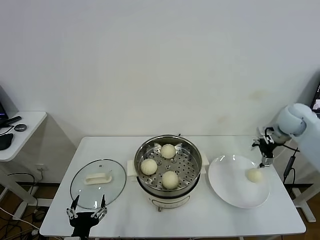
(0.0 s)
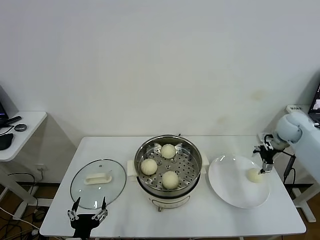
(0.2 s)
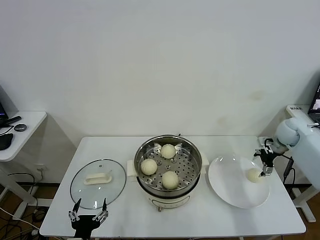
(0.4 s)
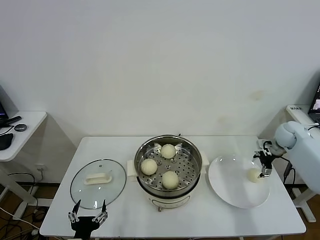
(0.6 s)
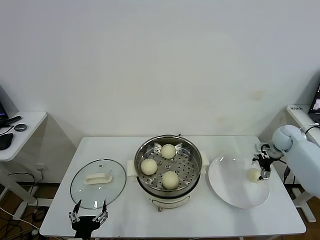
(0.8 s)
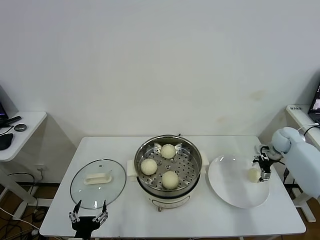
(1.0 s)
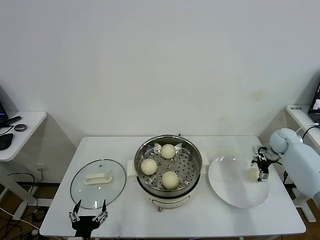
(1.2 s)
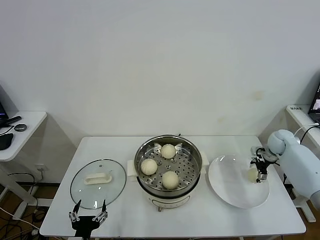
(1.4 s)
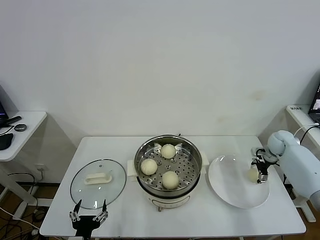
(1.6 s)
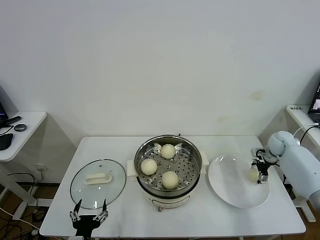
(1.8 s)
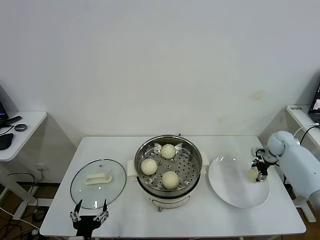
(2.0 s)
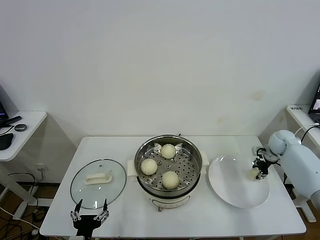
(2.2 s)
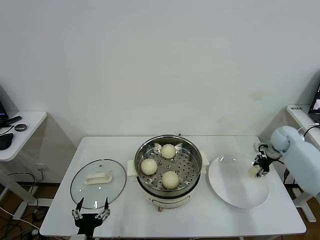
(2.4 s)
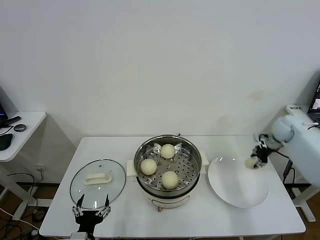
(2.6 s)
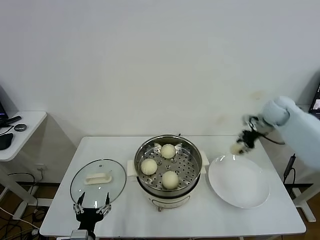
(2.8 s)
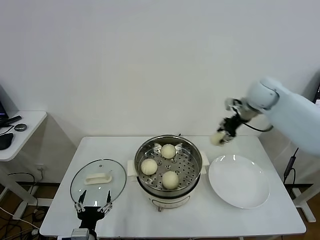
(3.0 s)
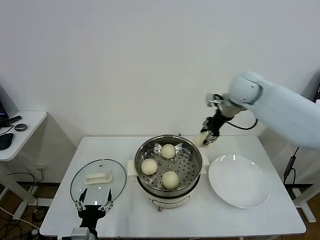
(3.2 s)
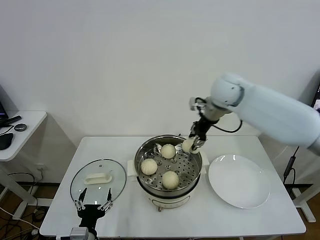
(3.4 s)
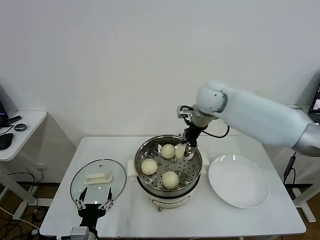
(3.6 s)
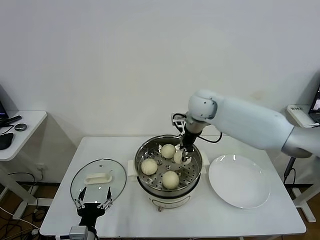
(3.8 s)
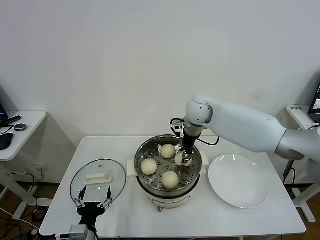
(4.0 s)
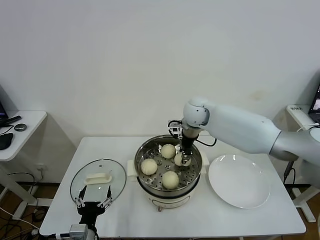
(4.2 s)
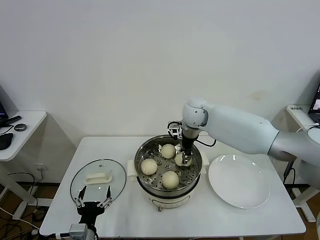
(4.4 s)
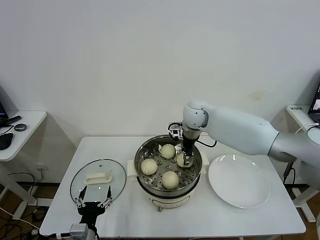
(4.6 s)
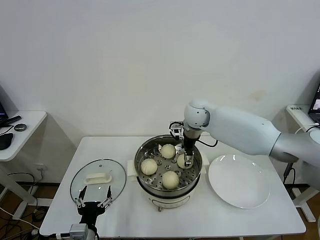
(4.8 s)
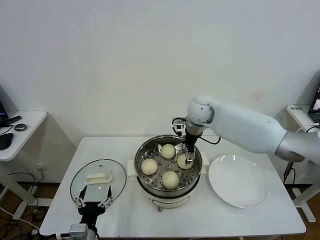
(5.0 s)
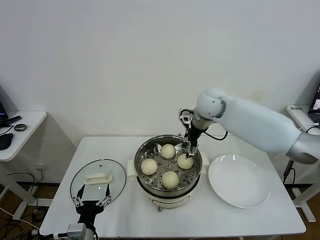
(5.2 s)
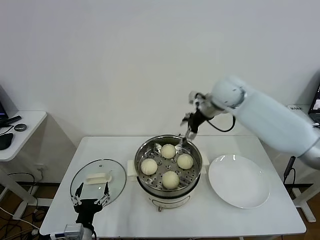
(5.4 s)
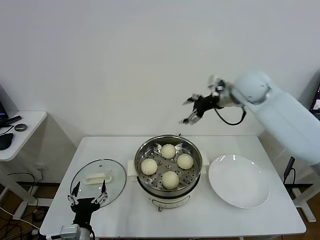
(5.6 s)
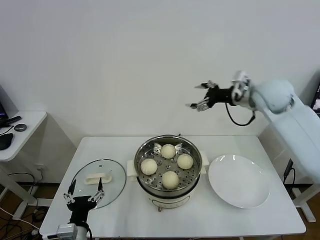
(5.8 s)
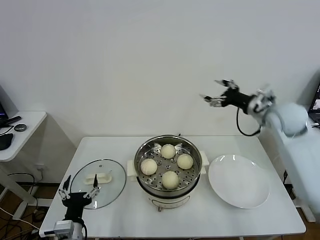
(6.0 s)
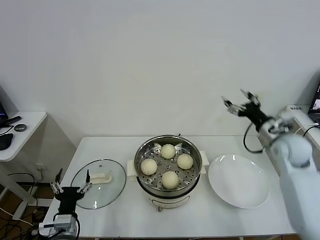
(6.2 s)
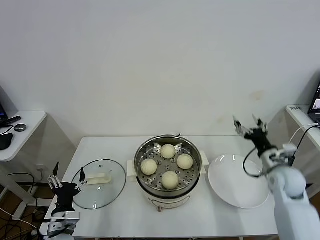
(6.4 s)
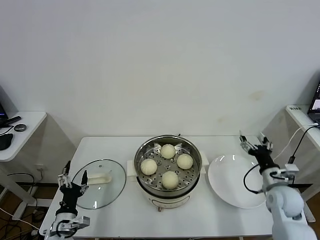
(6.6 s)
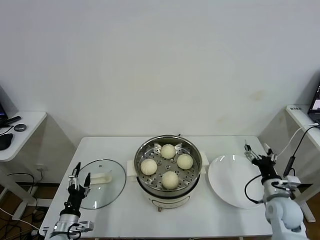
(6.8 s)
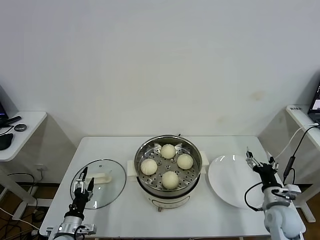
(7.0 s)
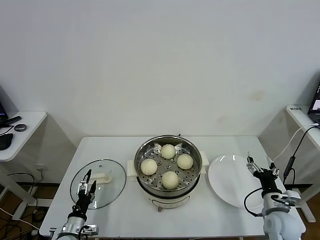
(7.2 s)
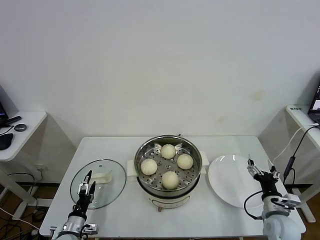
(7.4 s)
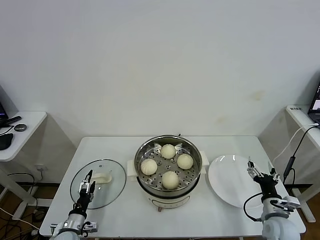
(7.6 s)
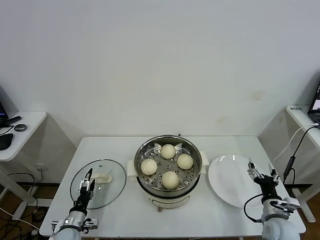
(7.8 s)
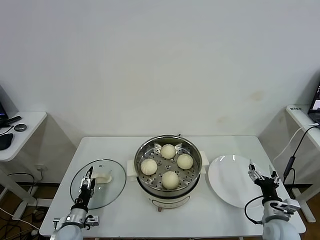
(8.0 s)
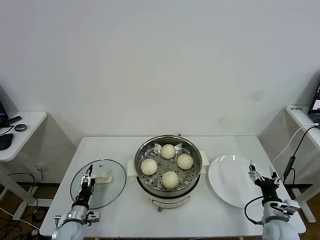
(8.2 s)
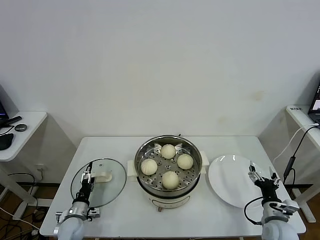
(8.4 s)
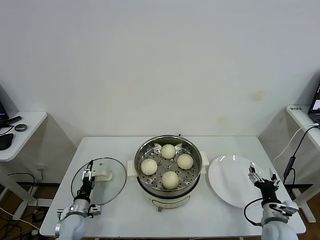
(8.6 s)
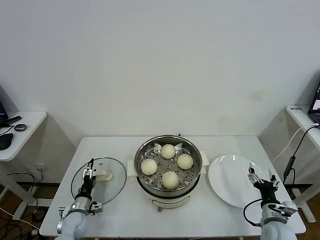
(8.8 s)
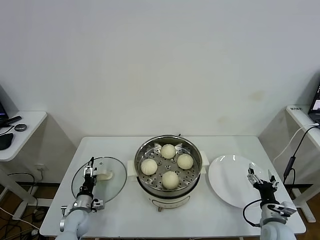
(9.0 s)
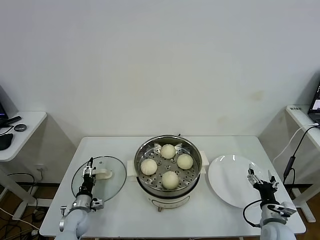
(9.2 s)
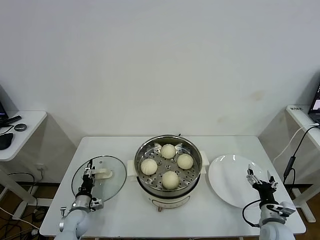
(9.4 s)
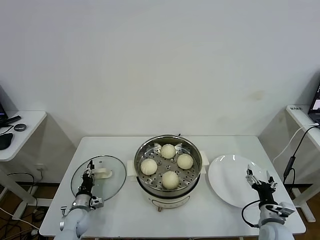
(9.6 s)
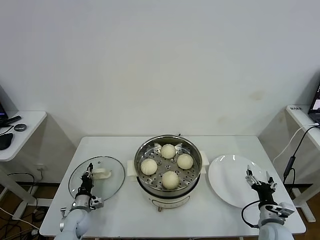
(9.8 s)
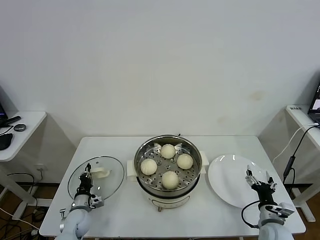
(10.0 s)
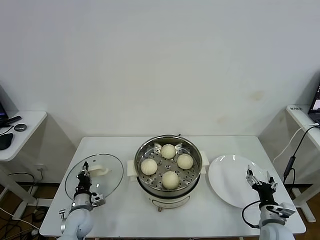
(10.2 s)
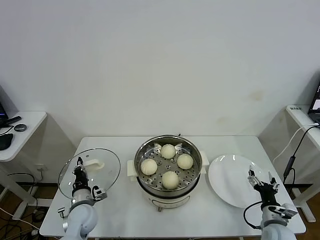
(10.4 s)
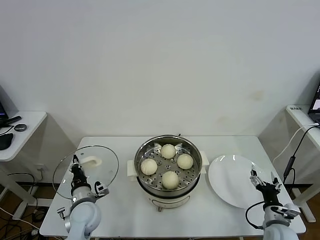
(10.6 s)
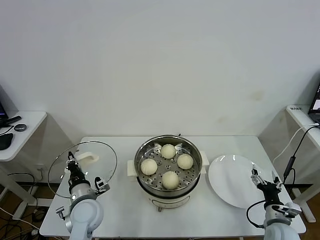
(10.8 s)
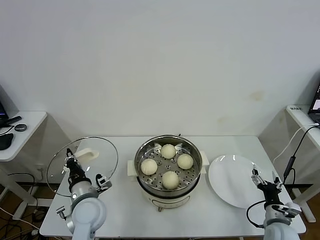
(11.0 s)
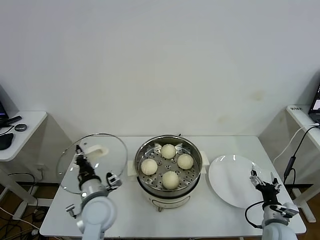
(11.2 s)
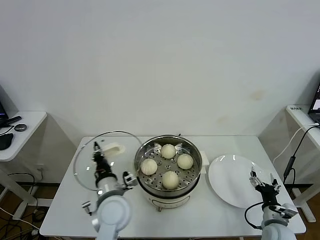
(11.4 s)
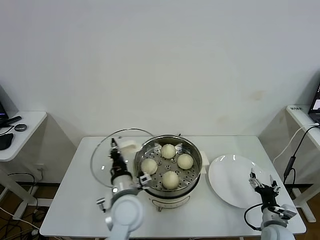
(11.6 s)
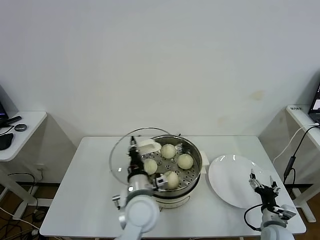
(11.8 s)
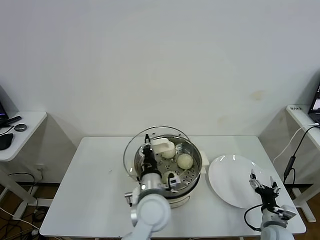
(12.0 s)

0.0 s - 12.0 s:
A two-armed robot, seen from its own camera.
Task of the whole recording: take steamed baozi put them in steamer.
Step, 0.0 s - 2.0 s: Grasp the baozi in the plate with right gripper.
Step, 2.2 s - 5.0 s: Place the baozi on the steamer with right gripper.
Step, 5.4 s - 10.0 s: Grasp the pot lid with left gripper.
0.0 s - 1.6 s: The right gripper goes some 15 cm downward.
1.6 s - 3.0 s: The right gripper goes some 25 cm upward and to the left, and closes up.
3.0 s - 4.4 s: The right gripper shifts about 20 cm to the left.
4.4 s - 6.0 s: The right gripper moves to the right, about 25 cm, and opens up.
6.0 s - 7.6 s: The right gripper shifts about 35 cm downward and backward. The left gripper goes approximately 20 cm downward, to the left and forward.
7.6 s - 9.0 s: The left gripper is displaced forward by about 10 cm.
9.0 s - 10.4 s: The left gripper travels upward by approximately 10 cm, and closes its fingers.
10.4 s - 12.0 s: The left gripper shifts about 30 cm to the right and upward.

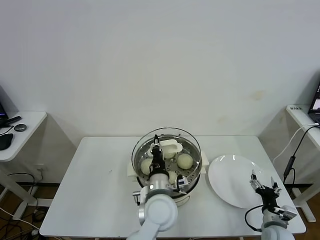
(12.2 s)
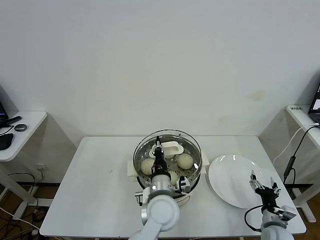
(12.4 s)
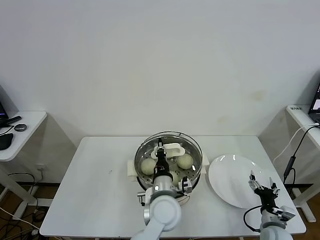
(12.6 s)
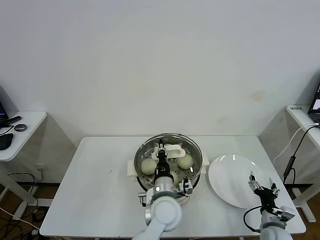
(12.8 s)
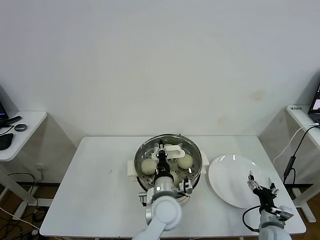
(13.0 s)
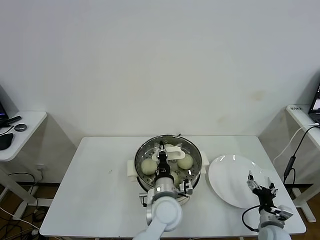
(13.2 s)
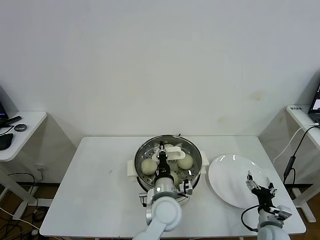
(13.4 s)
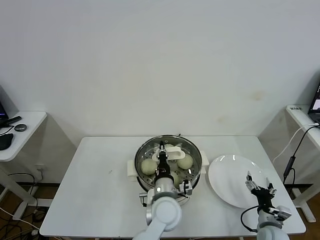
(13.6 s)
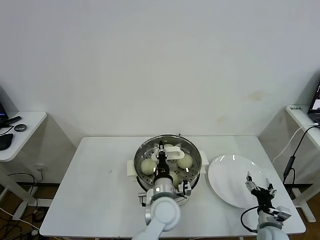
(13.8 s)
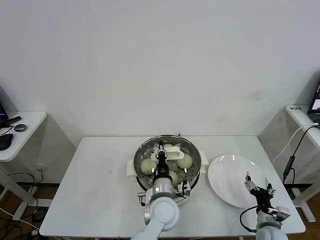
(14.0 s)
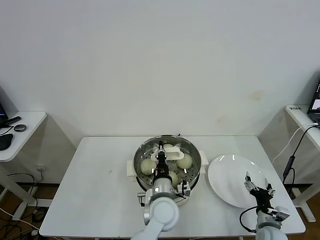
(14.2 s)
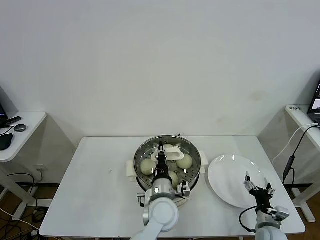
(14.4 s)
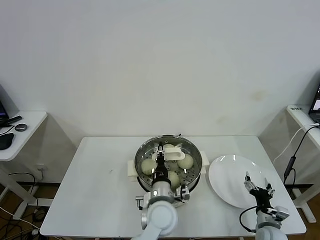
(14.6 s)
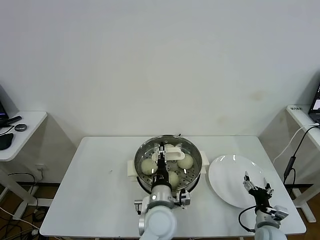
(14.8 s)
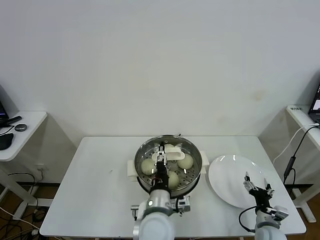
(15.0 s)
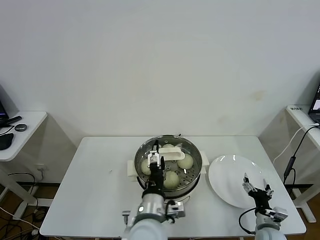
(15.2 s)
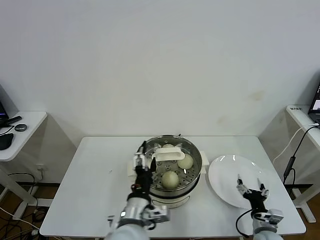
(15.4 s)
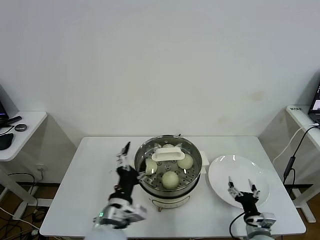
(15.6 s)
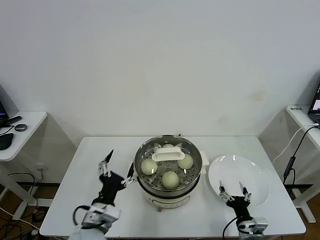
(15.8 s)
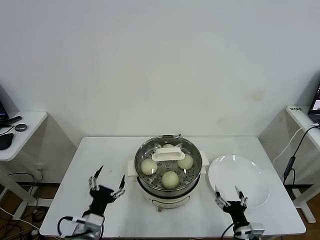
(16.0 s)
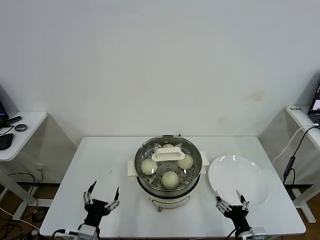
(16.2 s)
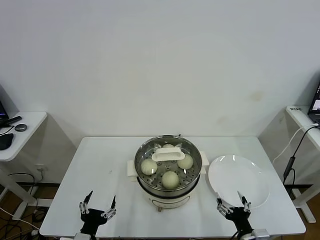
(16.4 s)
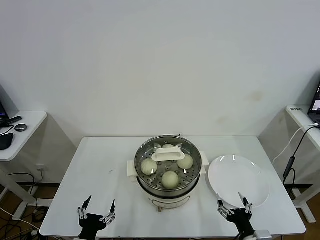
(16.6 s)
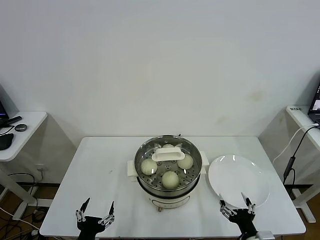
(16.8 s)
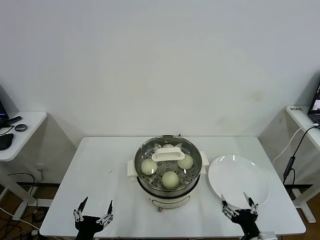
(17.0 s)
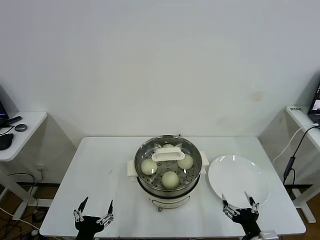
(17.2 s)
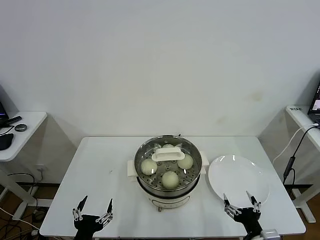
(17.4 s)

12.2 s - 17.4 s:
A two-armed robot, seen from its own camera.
Task of the whole recording: take steamed baozi put them in steamer.
Step, 12.2 s - 15.0 s: Place the pot lid on the steamer with left gripper.
12.2 s - 14.0 s: The left gripper changes place by roughly 5 cm.
14.0 s - 15.6 s: The left gripper travels to the left, backward and upward by roughly 15 cm, and opens up.
15.6 s - 17.4 s: The right gripper moves backward and upward, approximately 10 cm. The left gripper moves to the left, backward and downward, approximately 20 cm.

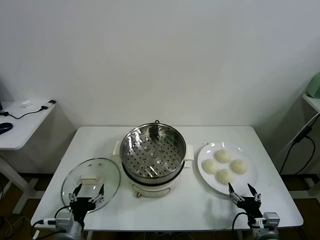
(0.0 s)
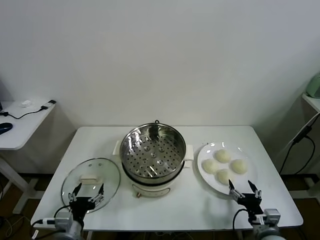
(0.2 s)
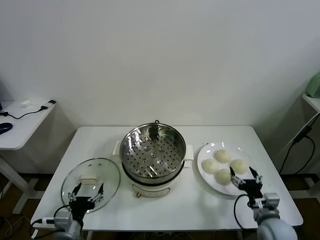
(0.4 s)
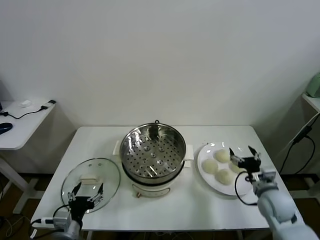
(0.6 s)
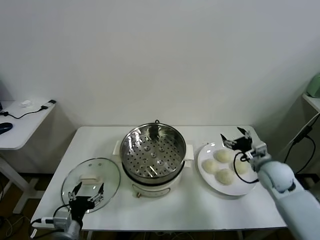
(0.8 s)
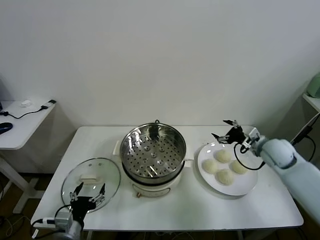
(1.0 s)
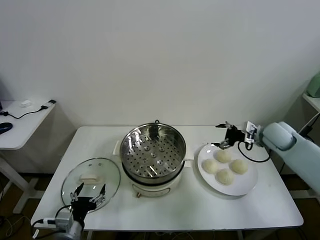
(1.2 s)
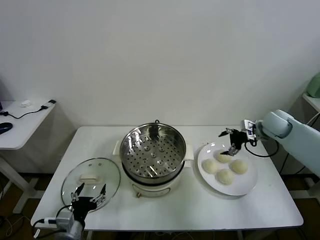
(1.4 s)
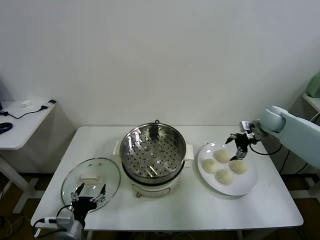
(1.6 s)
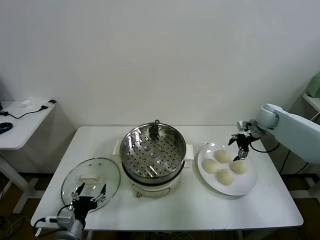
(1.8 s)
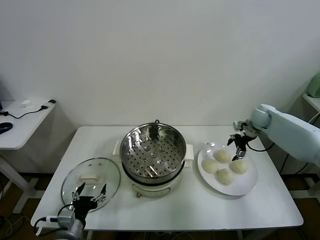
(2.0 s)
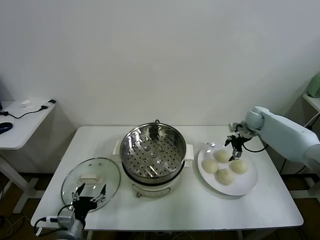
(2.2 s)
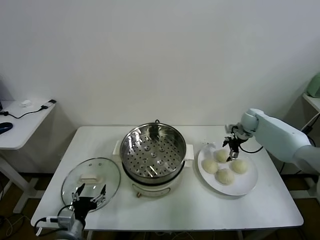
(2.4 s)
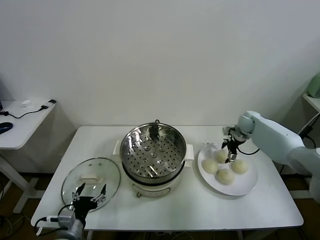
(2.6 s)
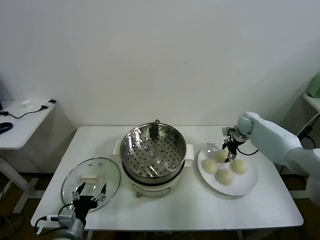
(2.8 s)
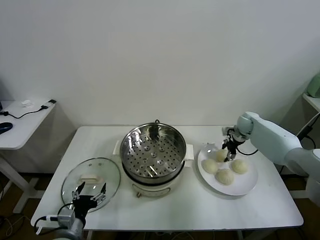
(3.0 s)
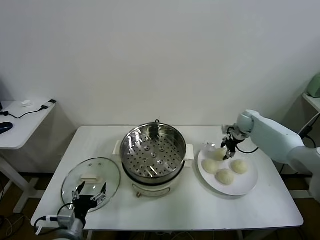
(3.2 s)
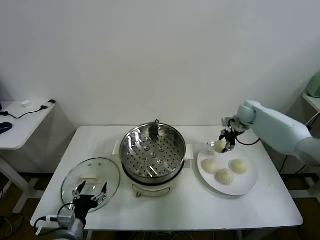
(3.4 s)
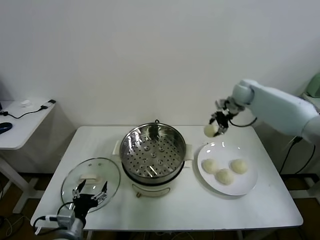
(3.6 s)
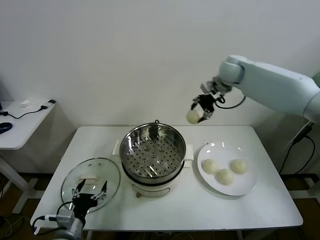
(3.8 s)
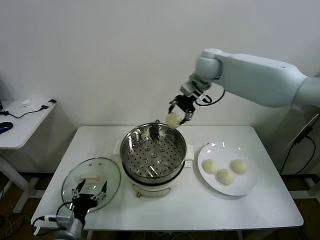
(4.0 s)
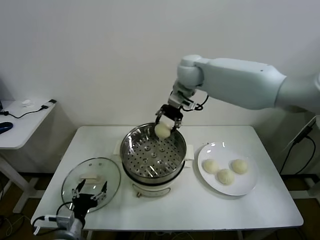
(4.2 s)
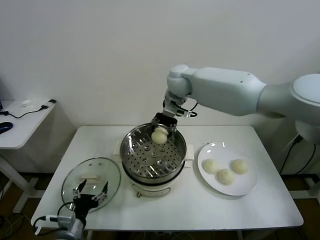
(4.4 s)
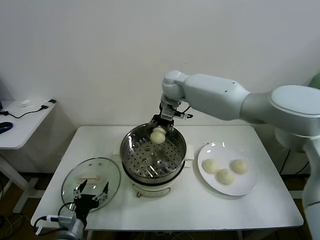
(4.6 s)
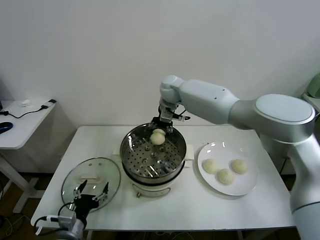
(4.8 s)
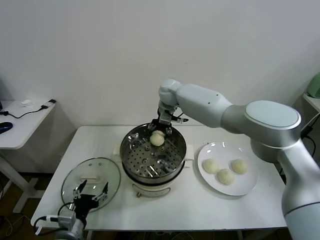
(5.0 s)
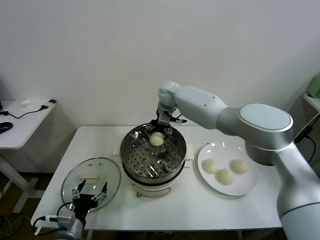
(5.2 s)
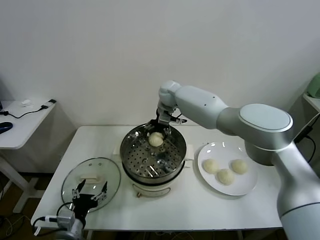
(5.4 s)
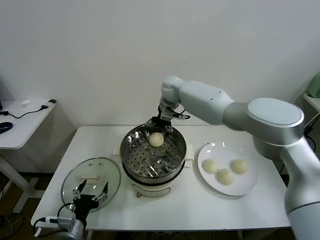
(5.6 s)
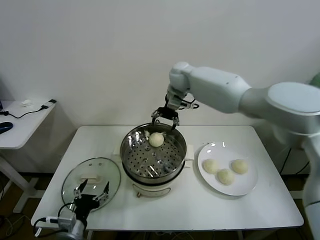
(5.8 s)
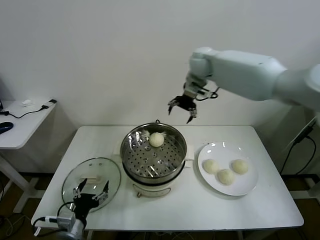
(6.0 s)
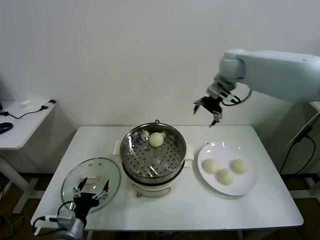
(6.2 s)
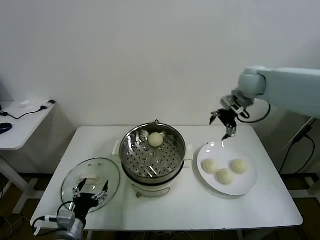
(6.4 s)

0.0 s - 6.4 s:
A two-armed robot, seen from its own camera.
Task of the whole recording: take steamed baozi put them in steamer.
Step, 0.0 s - 3.0 s: Grasp the baozi in the plate with right gripper.
Step, 3.2 s - 5.2 s: Place the baozi on the steamer with right gripper.
1.6 s - 3.2 s: The right gripper travels forward by approximately 5 cm, and closes.
3.2 s - 4.8 s: The right gripper heads to the left, covering some 35 cm.
4.8 s - 6.4 s: The right gripper travels to the right by approximately 25 cm, and opens its fingers.
